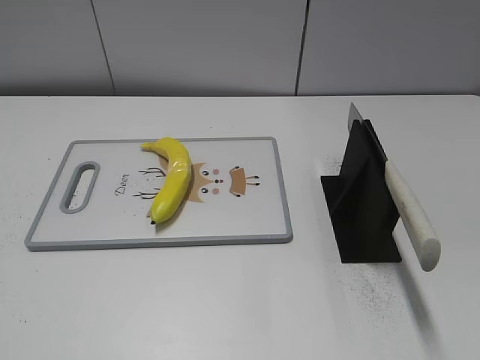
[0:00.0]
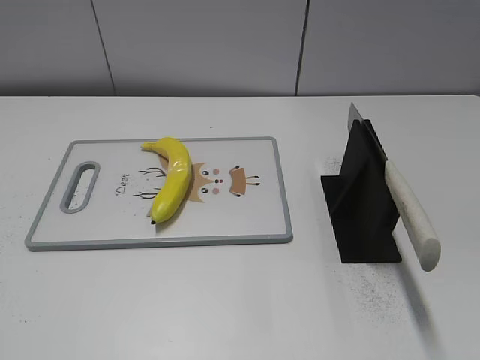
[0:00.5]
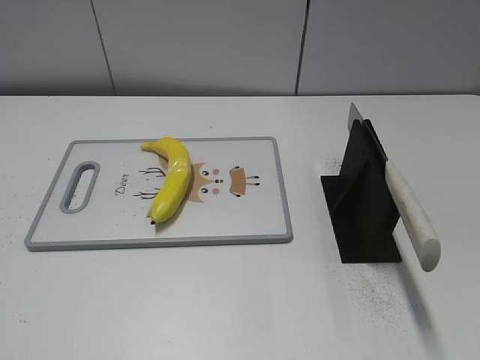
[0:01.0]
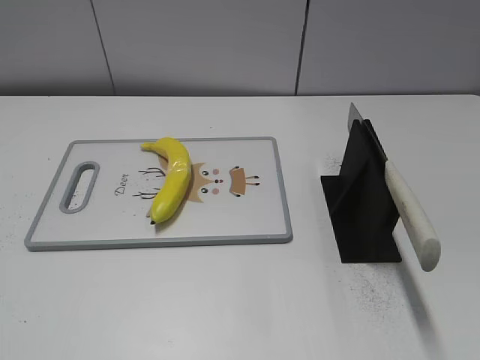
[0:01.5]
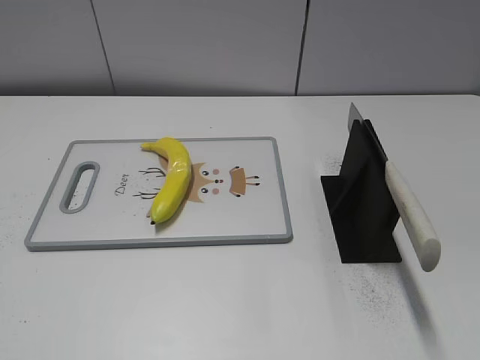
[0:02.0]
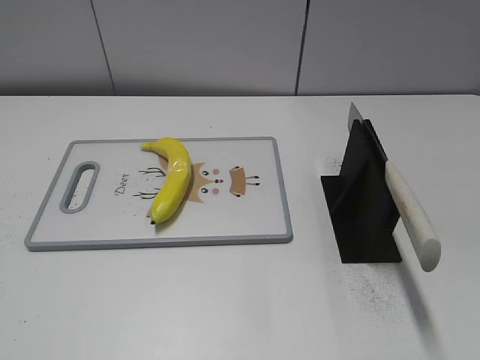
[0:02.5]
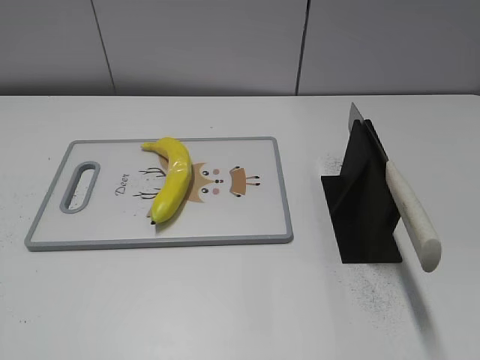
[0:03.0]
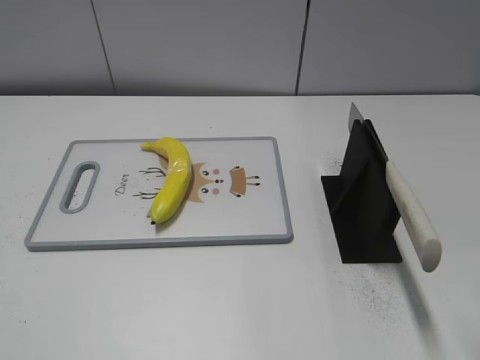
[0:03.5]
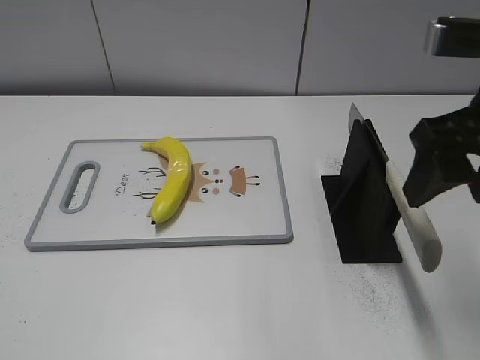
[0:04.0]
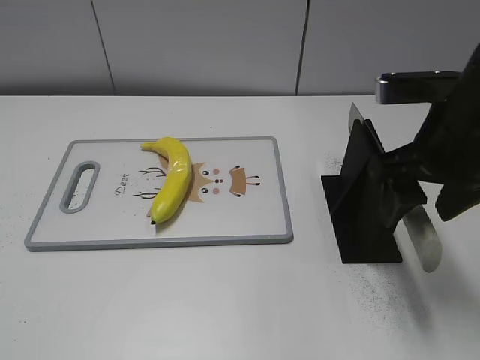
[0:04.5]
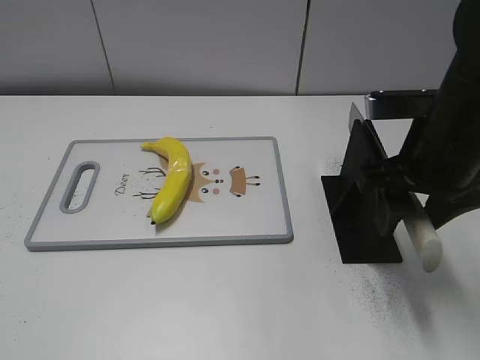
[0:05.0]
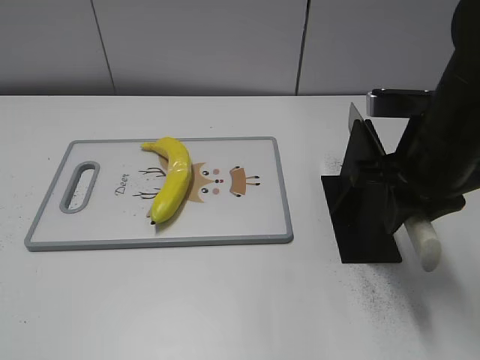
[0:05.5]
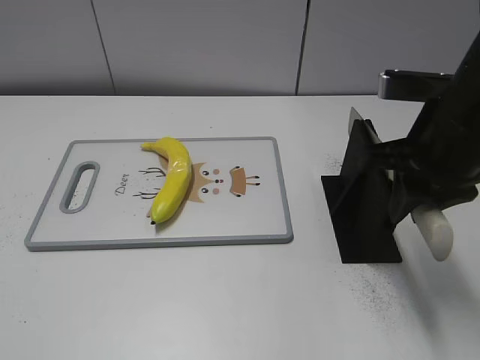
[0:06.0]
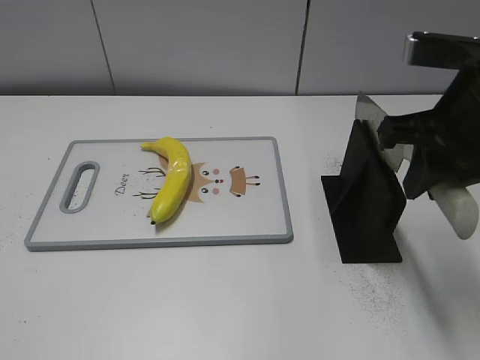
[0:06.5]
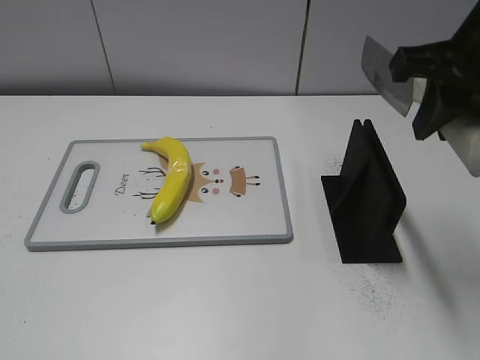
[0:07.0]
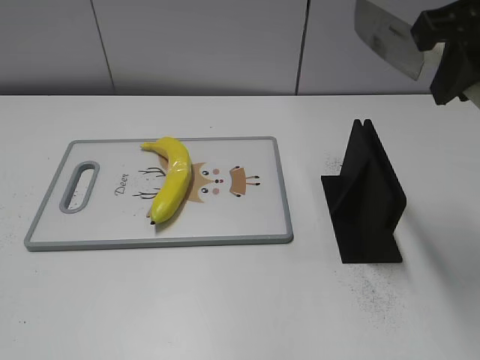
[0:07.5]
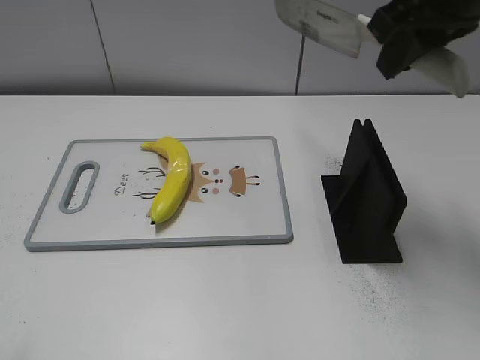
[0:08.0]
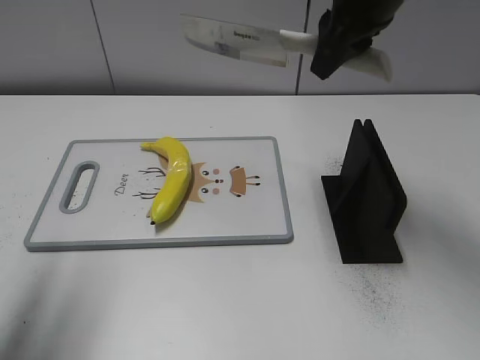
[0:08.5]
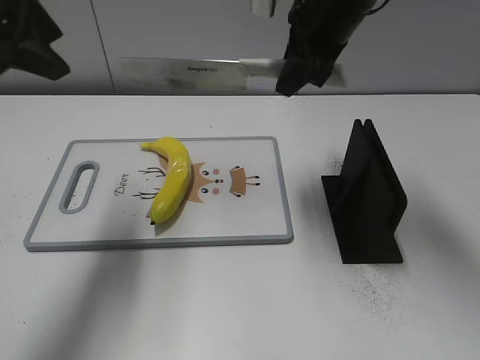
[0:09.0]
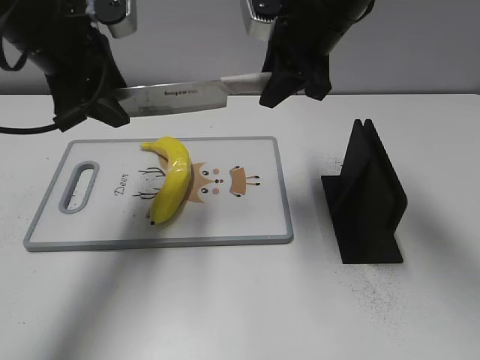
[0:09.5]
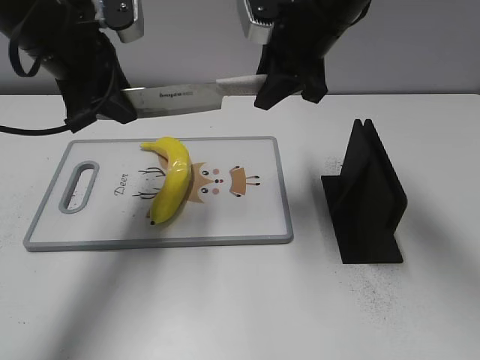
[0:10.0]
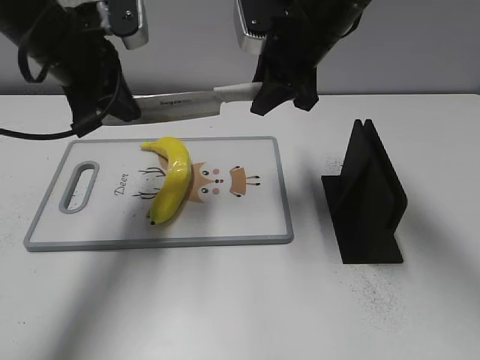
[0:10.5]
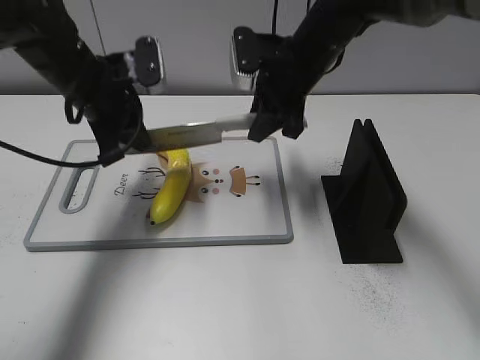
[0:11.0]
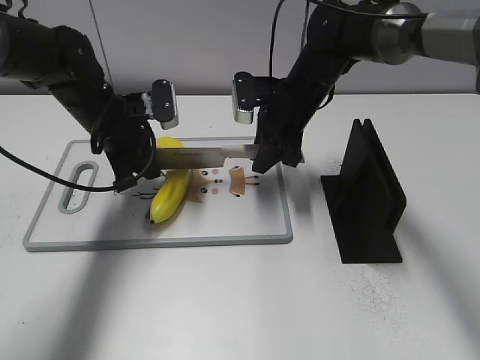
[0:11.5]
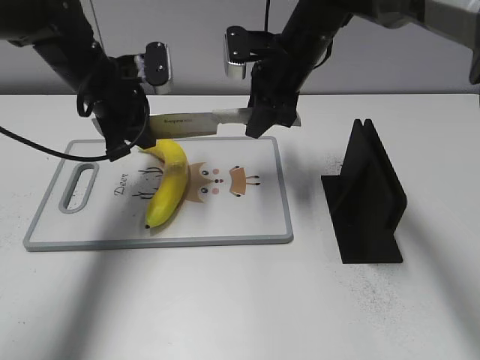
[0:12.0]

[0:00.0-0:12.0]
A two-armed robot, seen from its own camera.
Task of the whole recording: cut plastic banana.
Step, 0:00.0 to 0:06.5: Grab the knife handle with your right hand.
0:02.0 to 0:04.0: The right gripper travels forward and to the left by about 25 cm.
0:04.0 to 0:06.0: The right gripper travels downward by approximately 5 cm, and closes its fingers.
0:06.0 to 0:08.0: The right gripper shifts about 10 cm upward.
0:08.0 to 0:10.0: The left gripper travels forward and to the right by approximately 30 cm, while the right gripper is displaced forward, downward and to the left by roughly 15 cm.
0:10.0 to 0:12.0: The right gripper moves downward, some 10 cm. The left gripper moves downward and forward, roughly 10 cm, and closes its fingers.

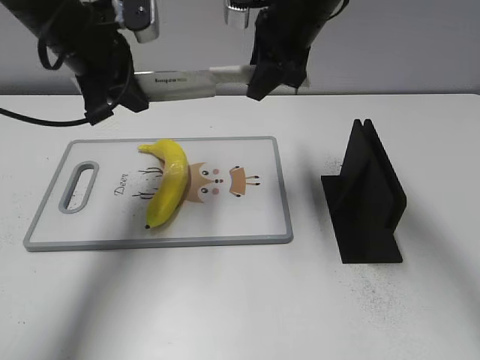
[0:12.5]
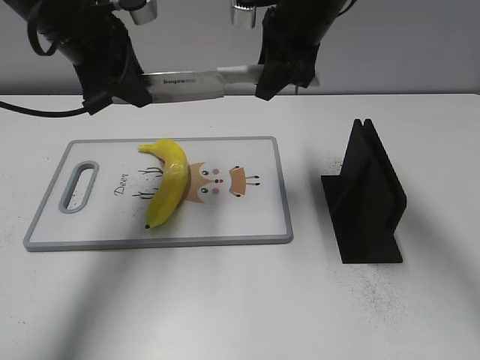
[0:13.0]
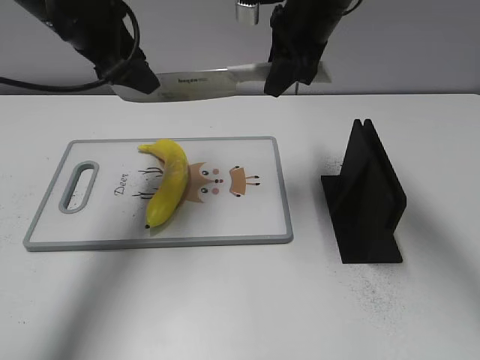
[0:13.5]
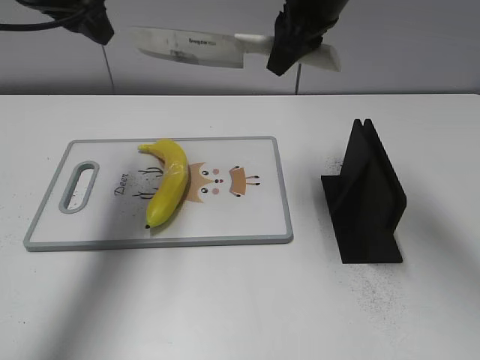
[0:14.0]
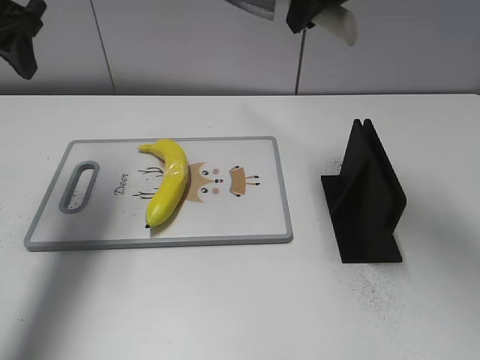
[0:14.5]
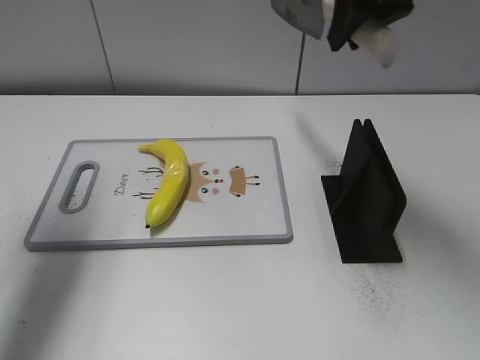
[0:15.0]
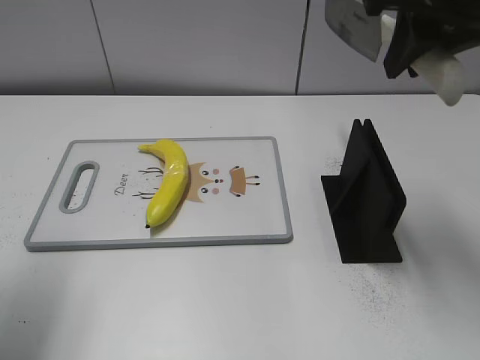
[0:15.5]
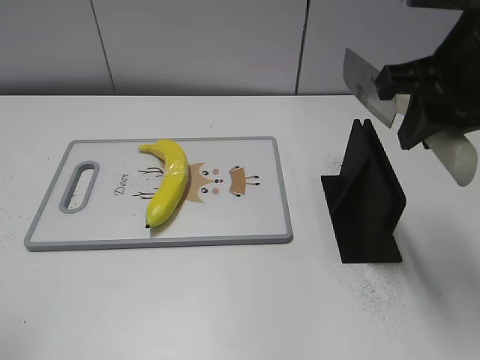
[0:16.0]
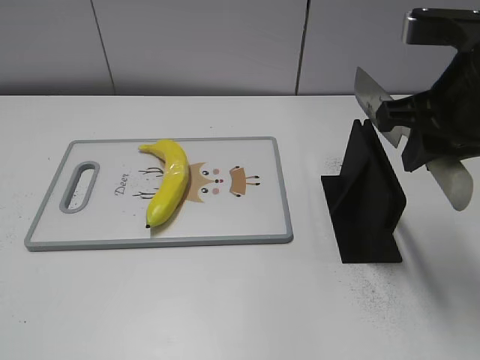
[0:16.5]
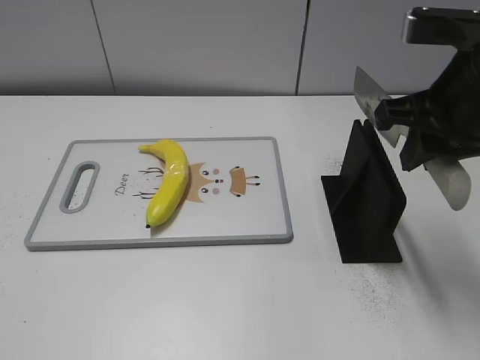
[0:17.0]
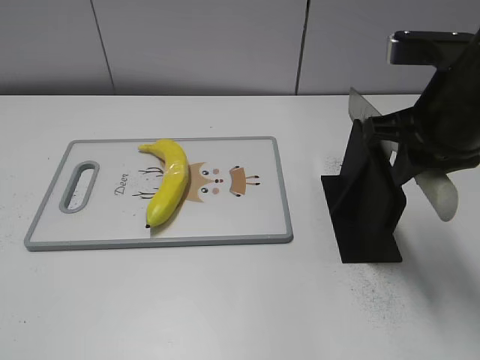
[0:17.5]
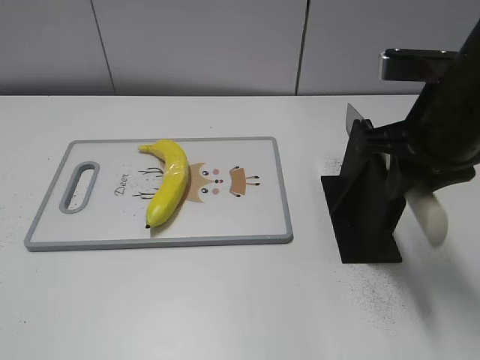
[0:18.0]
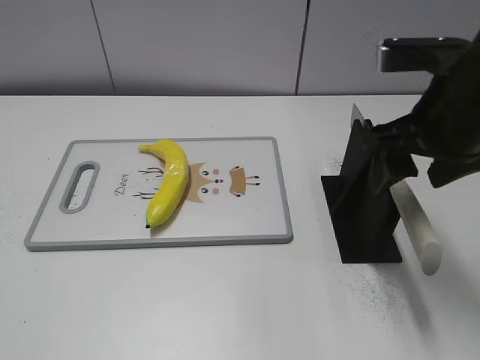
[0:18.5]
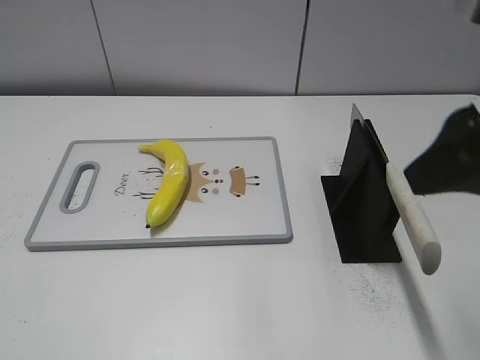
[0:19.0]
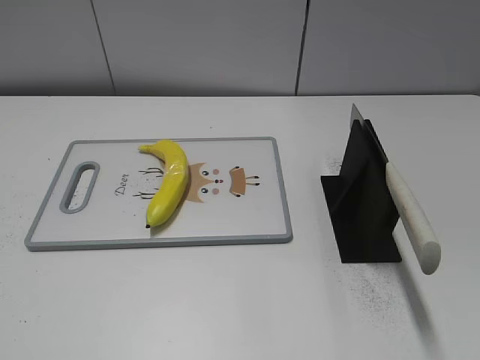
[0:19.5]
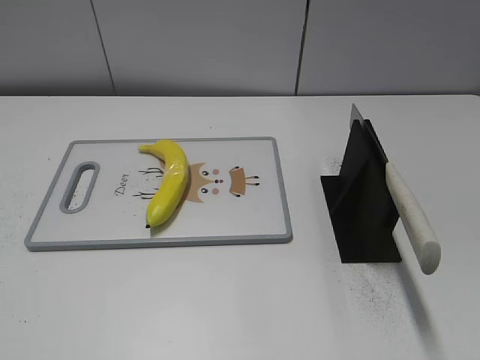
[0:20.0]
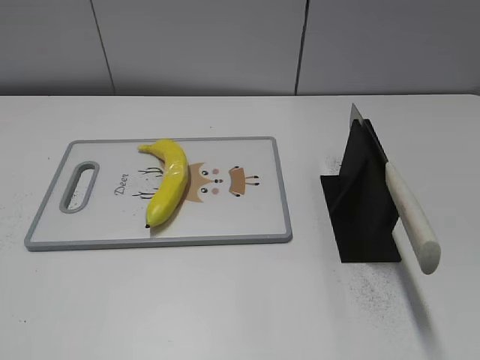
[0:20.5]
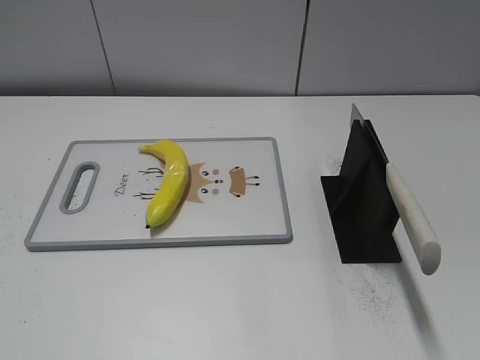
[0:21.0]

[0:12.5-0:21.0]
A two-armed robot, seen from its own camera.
Task of the whole recording: cut plastic banana.
Step, 0:14.0 to 0:16.0: Lift the knife with your right hand.
Step, 0:16.5 to 0:21.0: Place the knife on the storage rack with your right hand.
0:12.5 to 0:14.5: The left gripper heads to the left and upward, covering about 10 cm, and opens up. Meanwhile the right gripper heads upward, covering roughly 10 cm.
0:14.5 to 0:16.5: The left gripper heads backward, covering roughly 35 cm. Meanwhile the right gripper heads backward, to the right and downward, covering about 20 cm.
0:16.5 to 0:19.0: The right gripper heads backward, covering about 5 cm, and opens.
0:19.0 to 0:21.0: The right gripper shifts about 20 cm backward and to the right.
